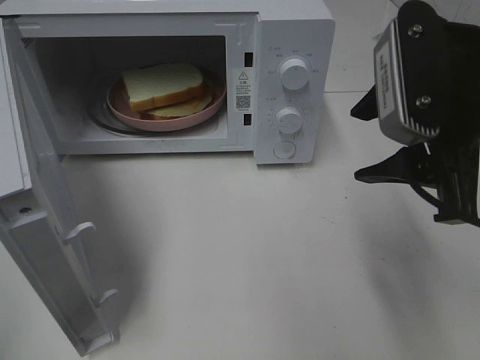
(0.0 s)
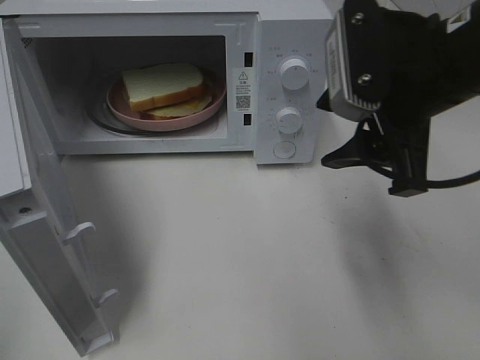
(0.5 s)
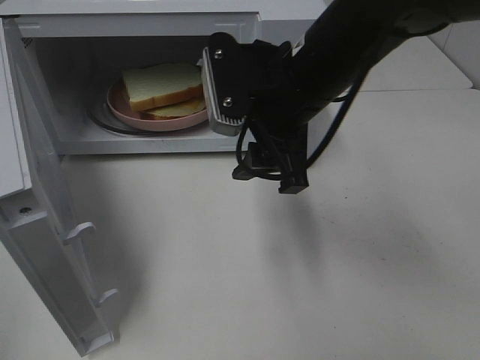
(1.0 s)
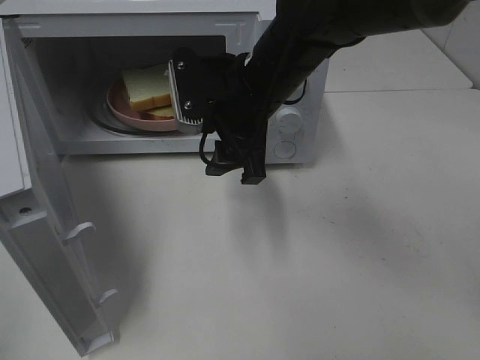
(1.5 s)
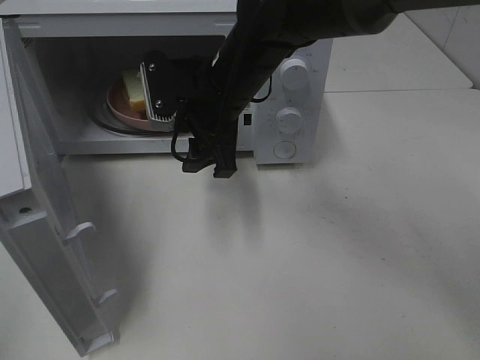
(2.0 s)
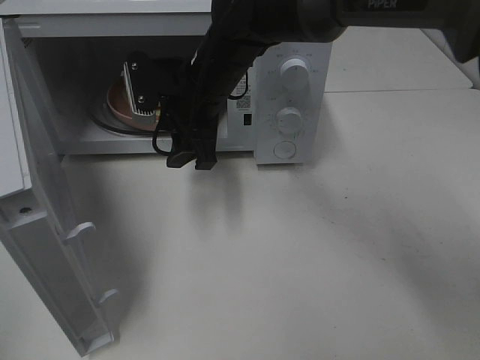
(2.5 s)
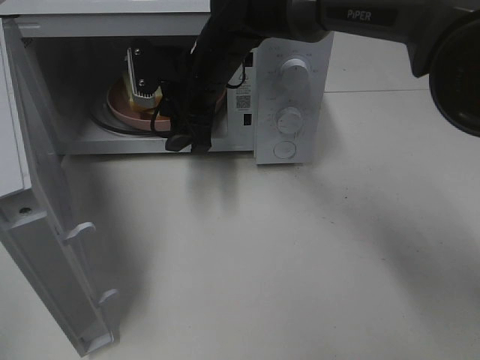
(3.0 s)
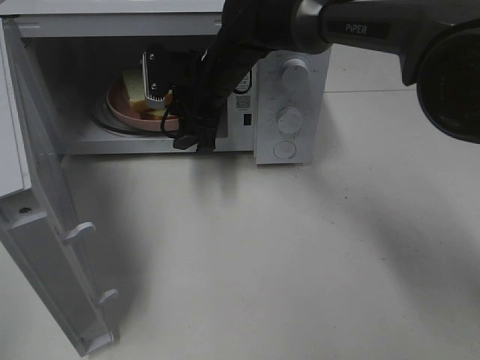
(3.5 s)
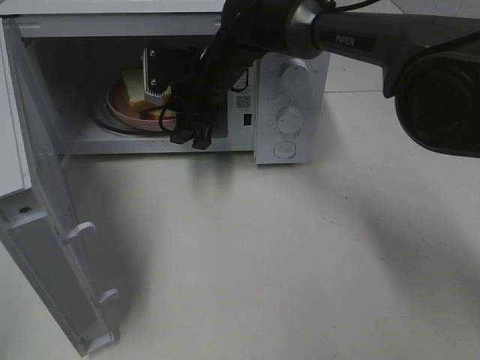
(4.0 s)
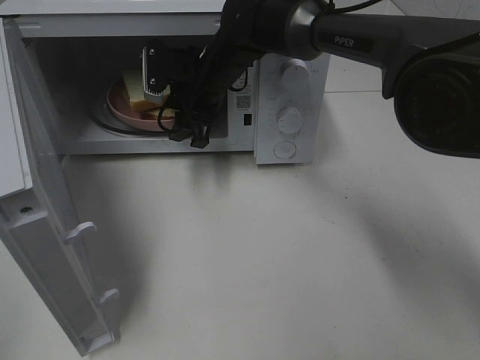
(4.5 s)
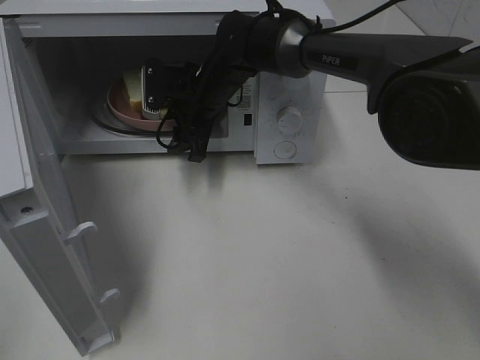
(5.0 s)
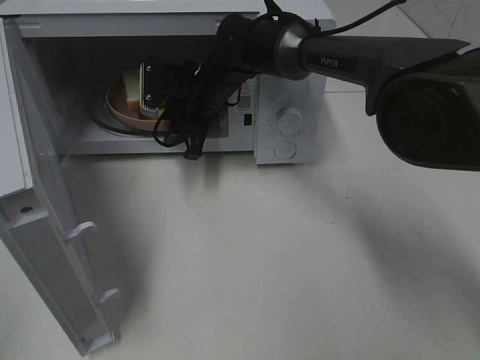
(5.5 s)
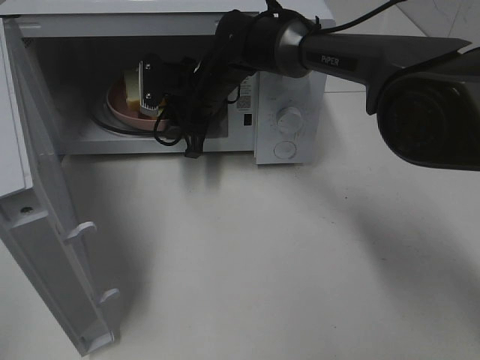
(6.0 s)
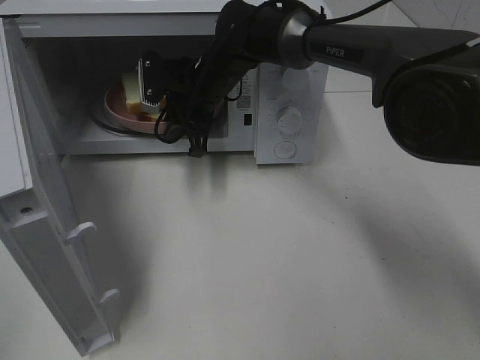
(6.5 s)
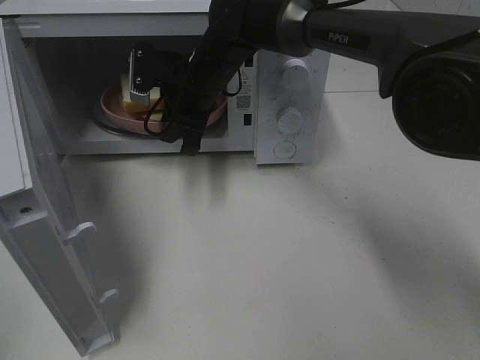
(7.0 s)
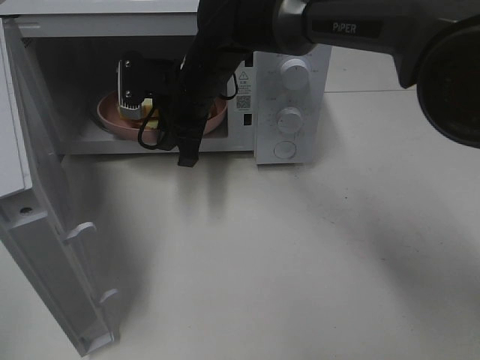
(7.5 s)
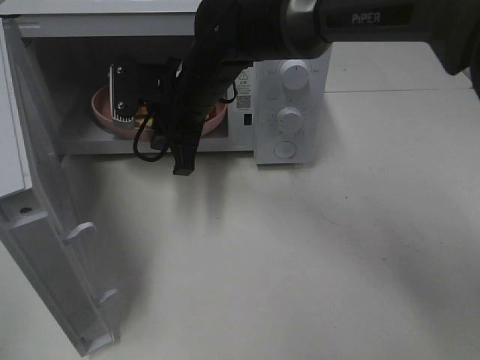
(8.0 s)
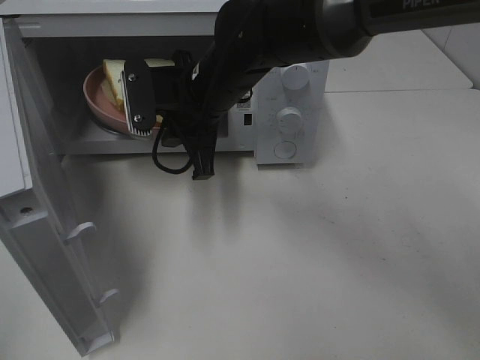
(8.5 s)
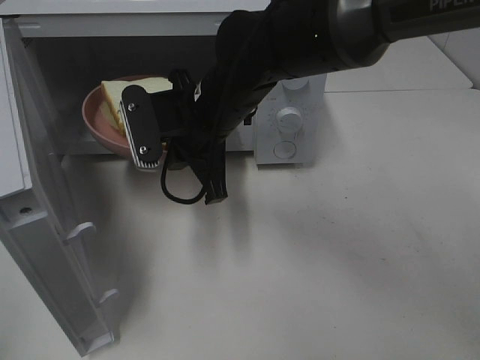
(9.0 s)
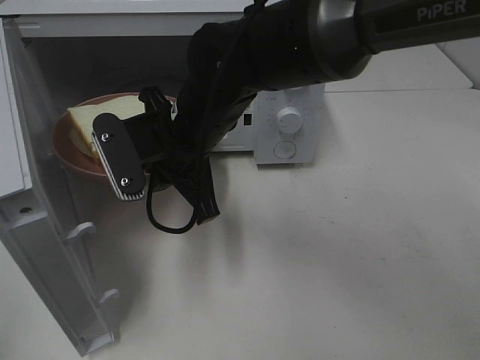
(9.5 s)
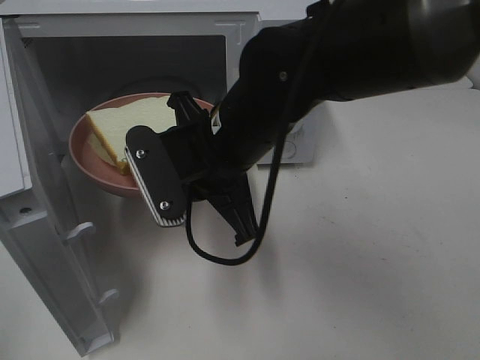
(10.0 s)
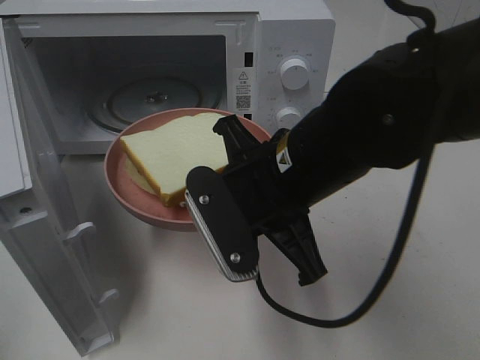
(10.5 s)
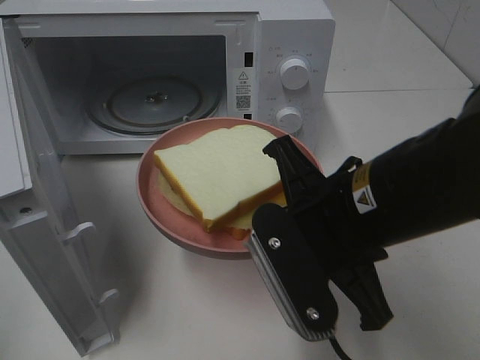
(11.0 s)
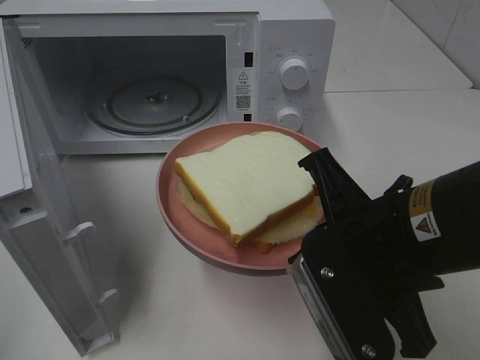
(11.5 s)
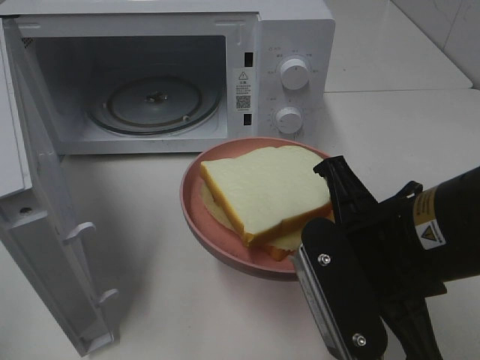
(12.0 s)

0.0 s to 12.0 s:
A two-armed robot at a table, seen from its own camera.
Task of the whole recording: Heat Sandwich.
Step, 0.0 to 7.0 s: Right hand: grab the plate with the sandwich.
0.0 to 2.0 s: The right gripper is displaced to the left, forward and downward by some 25 cm.
2.0 to 4.0 s: The right gripper travels forward by roughly 10 cm.
4.0 to 6.0 s: The right gripper closes its fingers.
6.0 to 8.0 s: The right gripper goes approximately 10 cm backward.
8.0 to 10.0 s: The right gripper heads backward, covering about 10 cm.
10.0 to 12.0 s: The right gripper travels to the right and backward by approximately 15 cm.

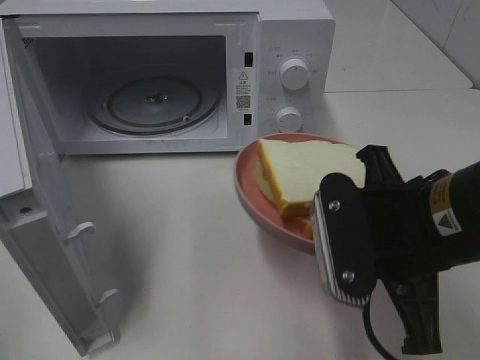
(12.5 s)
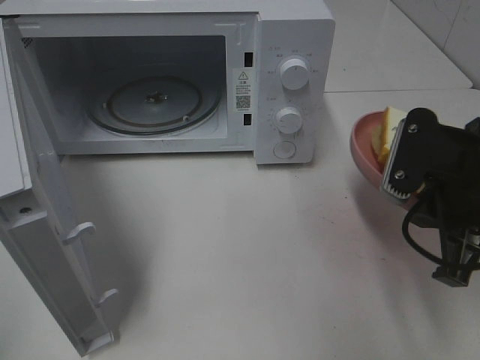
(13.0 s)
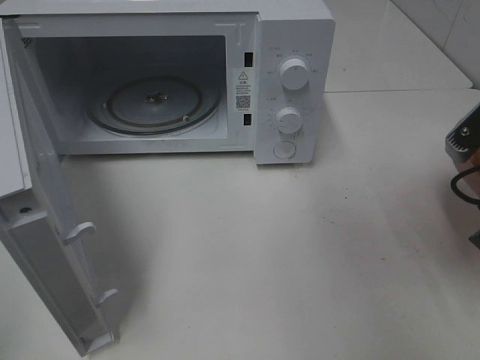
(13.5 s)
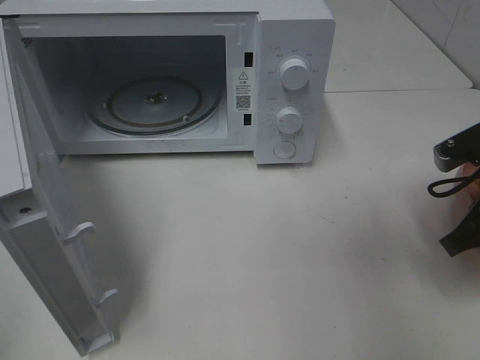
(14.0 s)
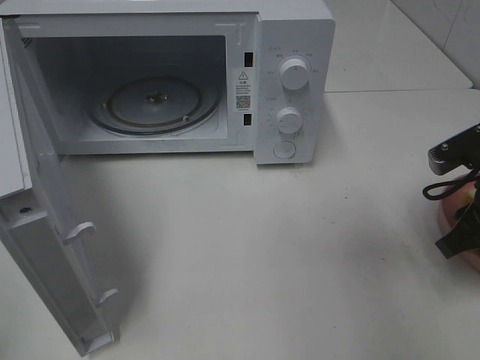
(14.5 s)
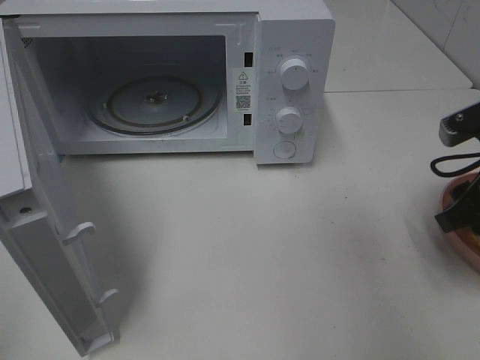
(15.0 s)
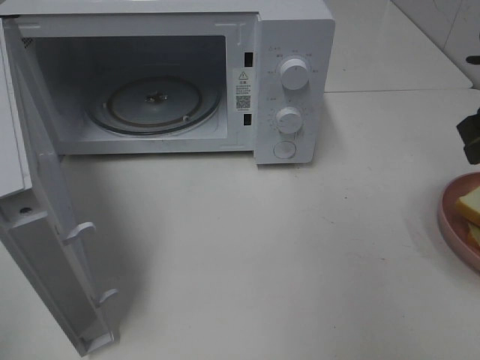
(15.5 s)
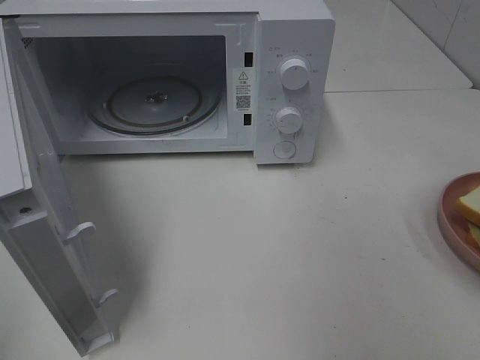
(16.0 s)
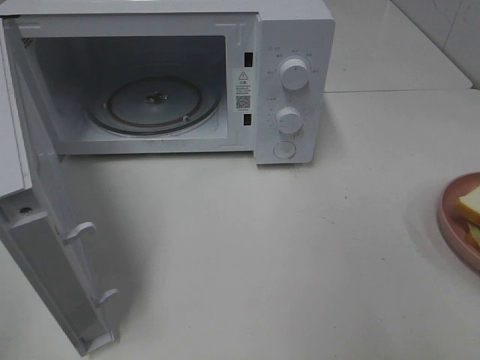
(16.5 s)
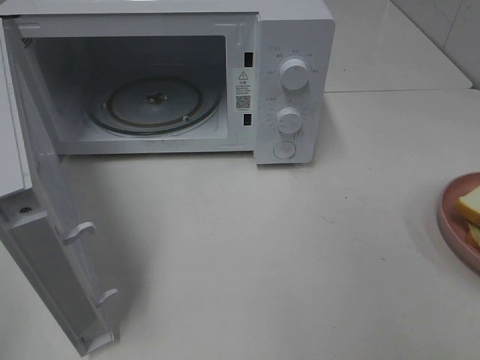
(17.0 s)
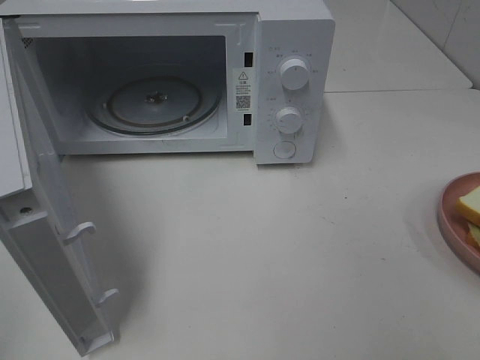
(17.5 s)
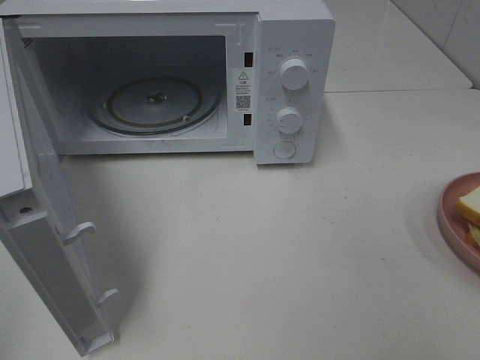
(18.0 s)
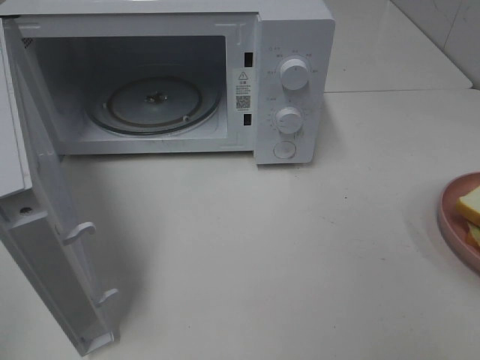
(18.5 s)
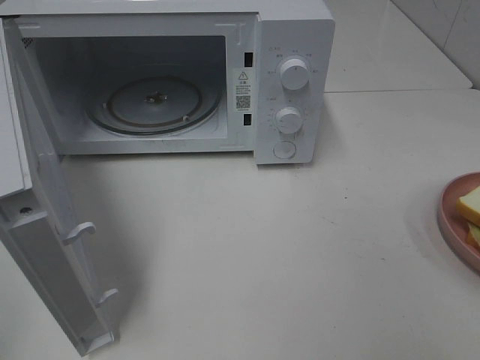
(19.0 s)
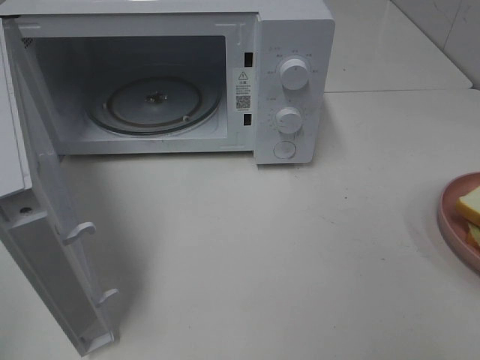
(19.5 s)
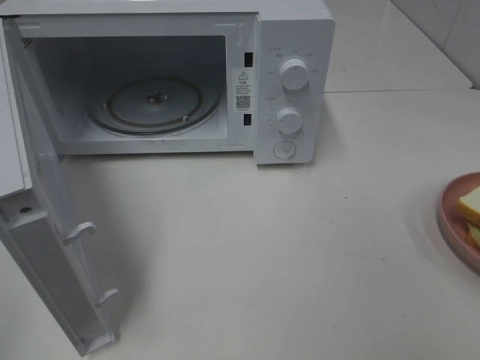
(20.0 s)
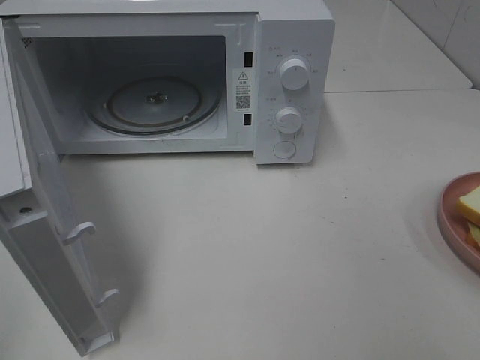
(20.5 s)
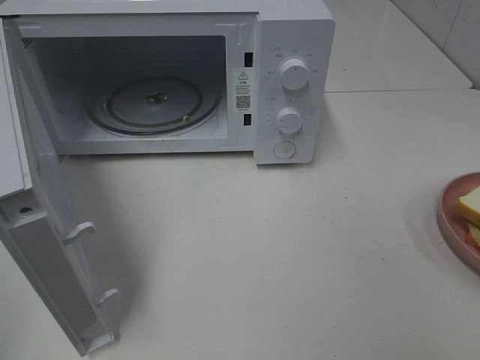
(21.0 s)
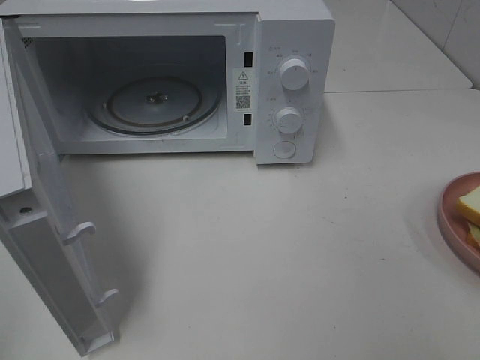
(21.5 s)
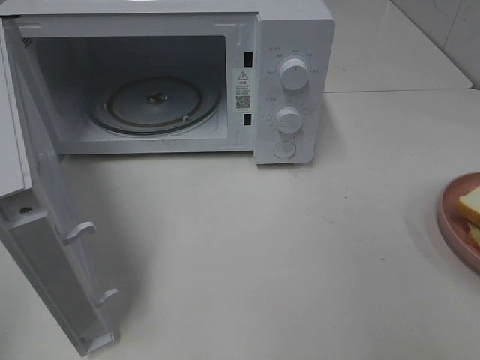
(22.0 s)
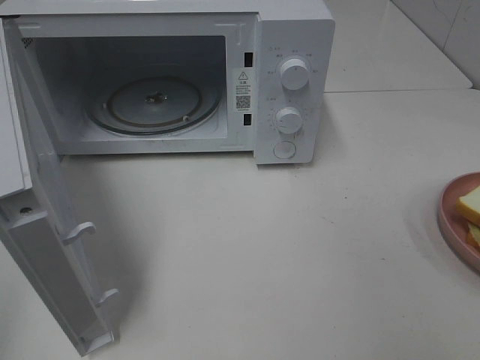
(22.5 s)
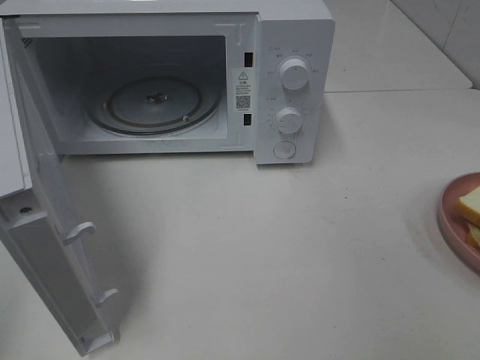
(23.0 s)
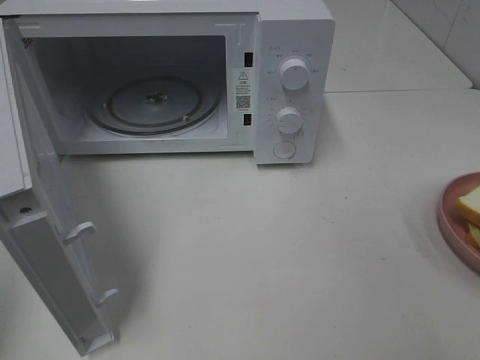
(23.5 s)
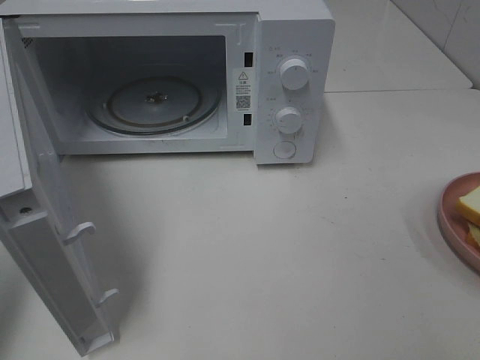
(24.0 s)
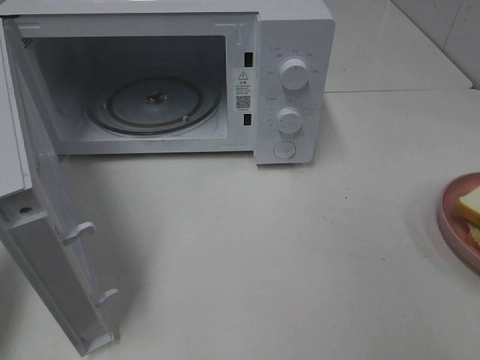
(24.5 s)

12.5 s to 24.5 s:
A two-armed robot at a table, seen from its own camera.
Task of the whole recording: Heat Sandwich.
Step, 12.5 to 15.0 s: Right hand: place the plate on the table.
12.5 to 14.5 s: The right gripper goes about 15 cm to the right and forward, and opens its fingers.
14.5 to 16.5 s: The right gripper travels upward and backward by some 25 cm.
18.5 to 20.5 s: Neither gripper changes place.
22.5 to 24.5 s: The left gripper is displaced forward by approximately 15 cm, and closes its fingers.

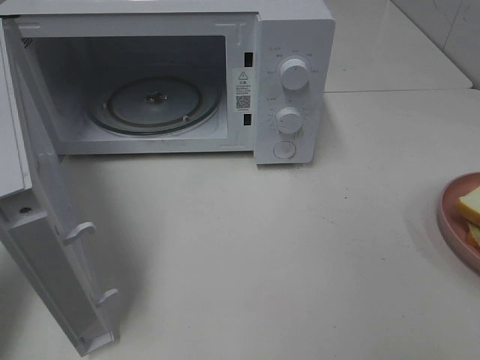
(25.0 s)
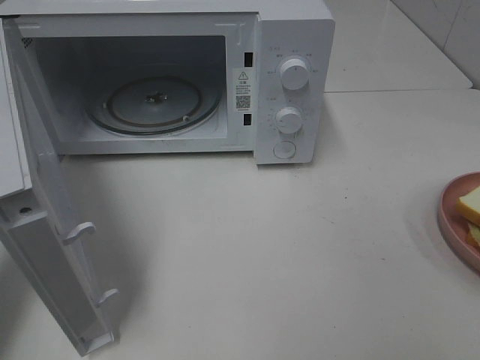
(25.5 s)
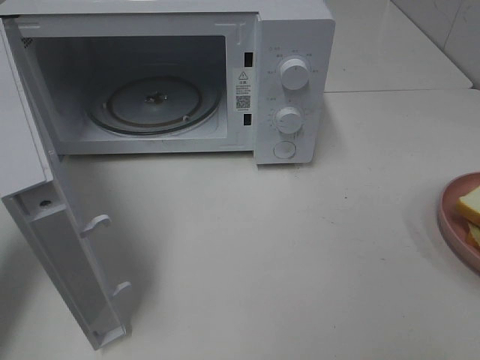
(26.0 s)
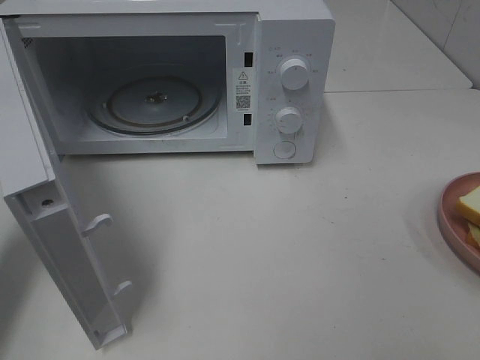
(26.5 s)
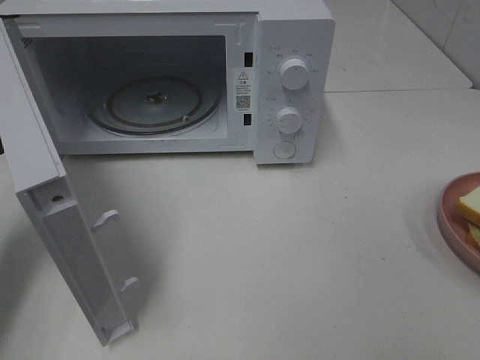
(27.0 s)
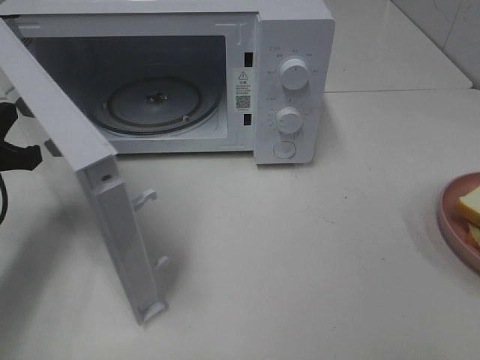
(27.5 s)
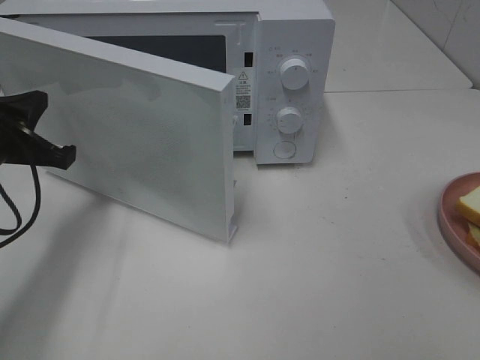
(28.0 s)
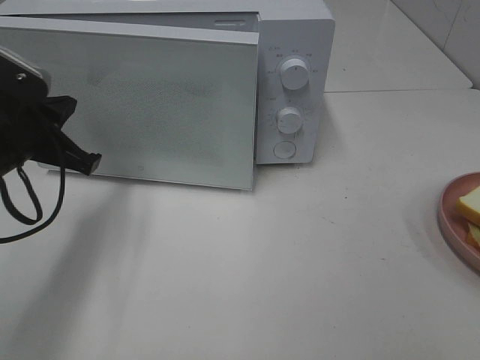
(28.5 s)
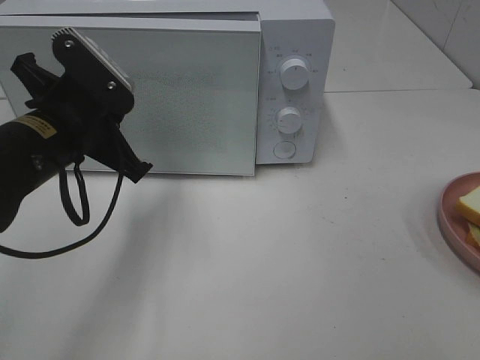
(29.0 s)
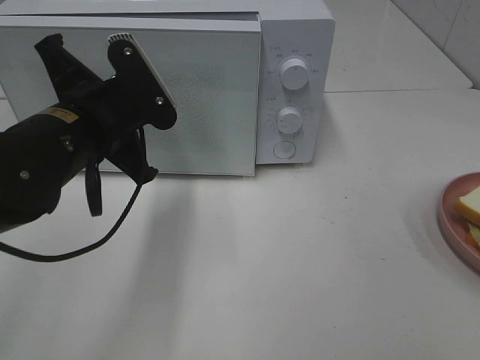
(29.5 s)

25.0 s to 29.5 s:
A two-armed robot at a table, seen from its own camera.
Task of the whole recording: Heat Sandwich.
25.0 to 27.0 s: The left gripper moves forward and downward, approximately 10 cm.
27.0 to 29.5 s: The left gripper is displaced to the right by roughly 15 cm.
